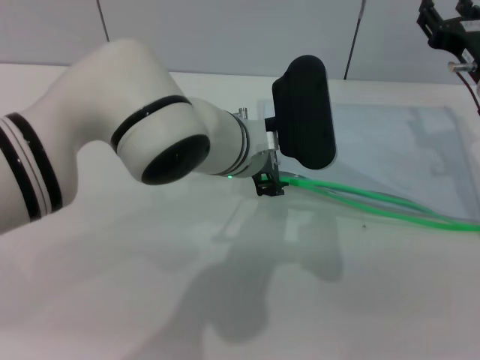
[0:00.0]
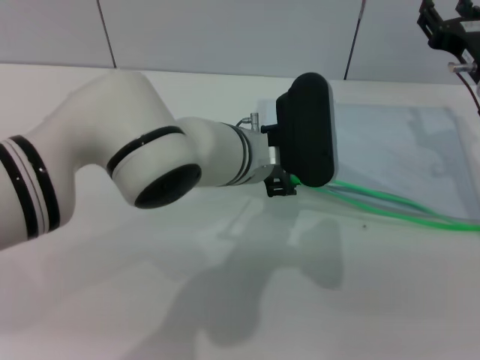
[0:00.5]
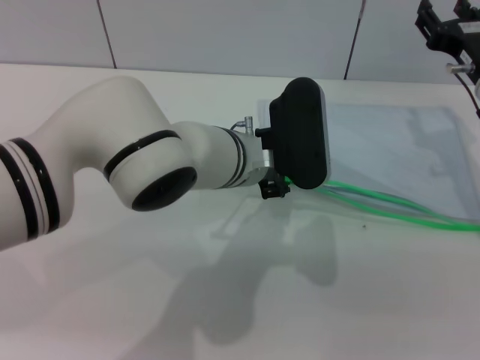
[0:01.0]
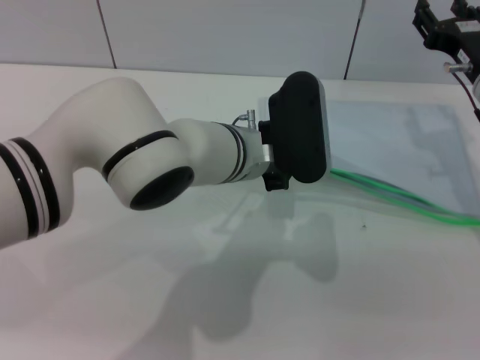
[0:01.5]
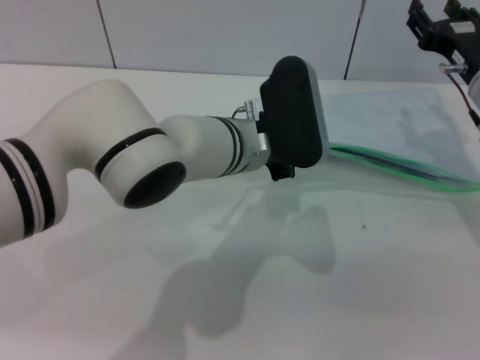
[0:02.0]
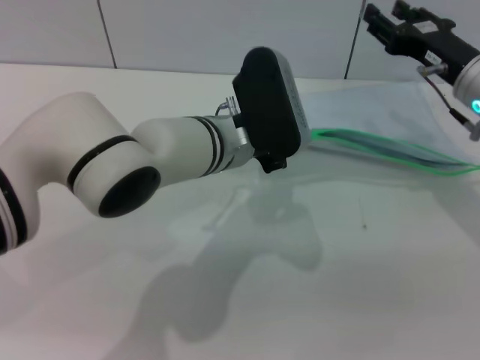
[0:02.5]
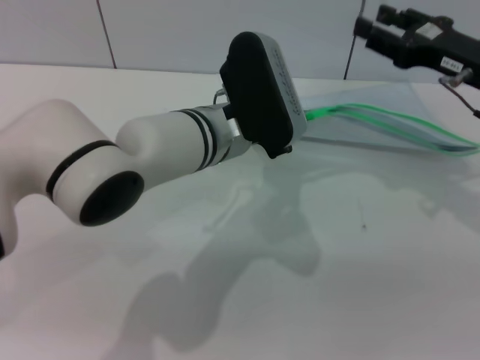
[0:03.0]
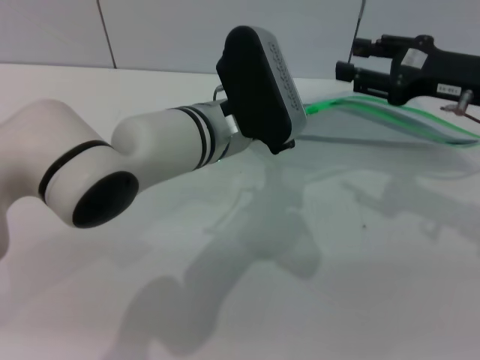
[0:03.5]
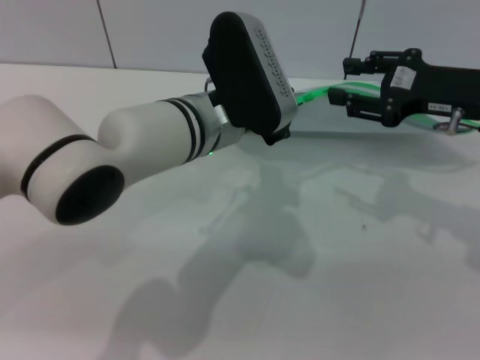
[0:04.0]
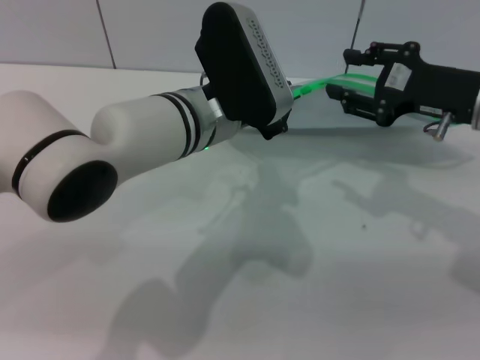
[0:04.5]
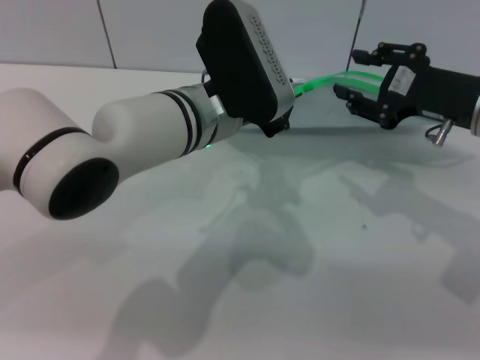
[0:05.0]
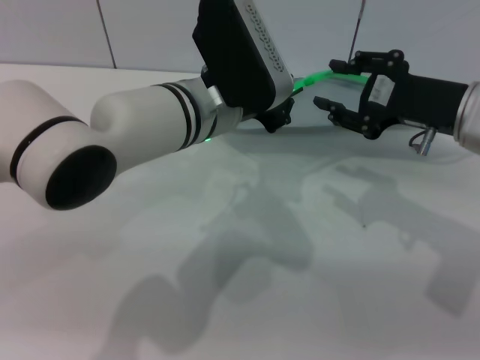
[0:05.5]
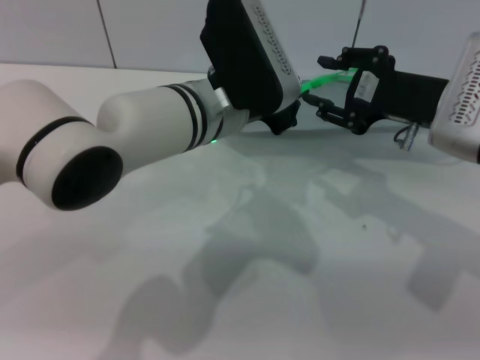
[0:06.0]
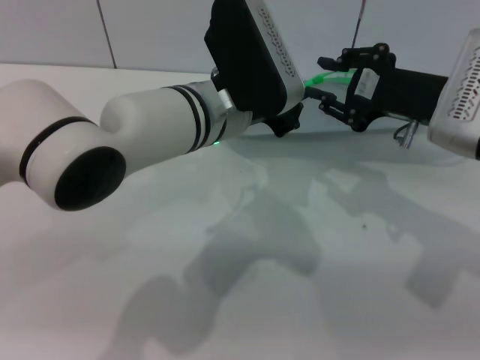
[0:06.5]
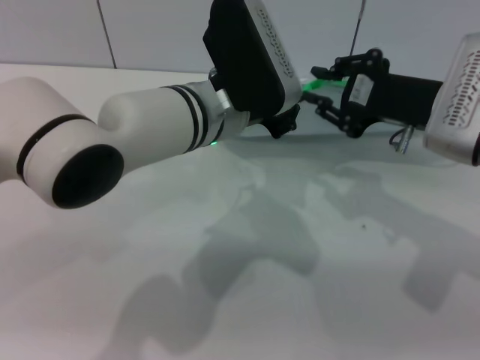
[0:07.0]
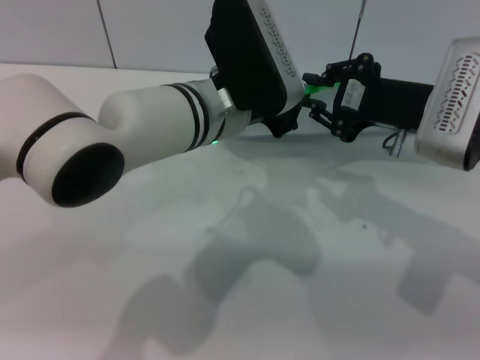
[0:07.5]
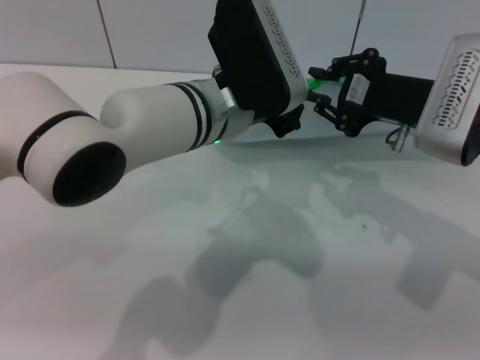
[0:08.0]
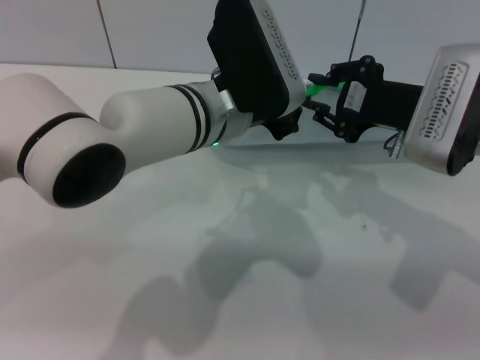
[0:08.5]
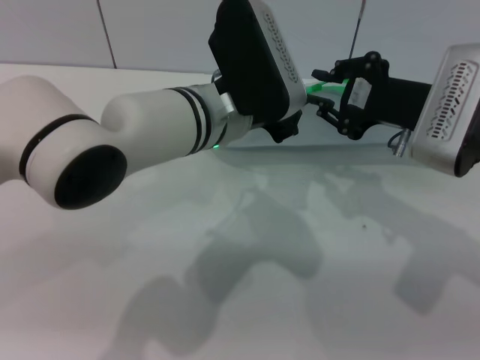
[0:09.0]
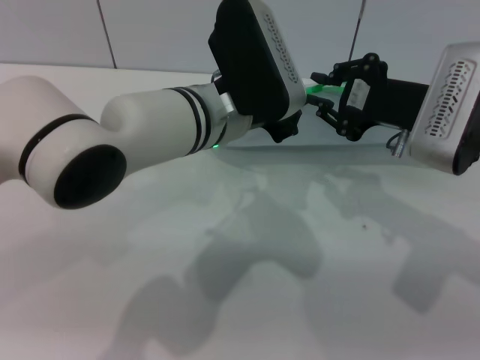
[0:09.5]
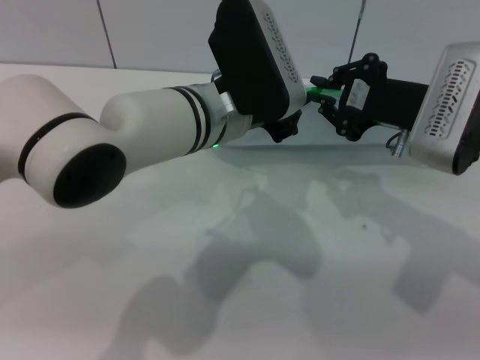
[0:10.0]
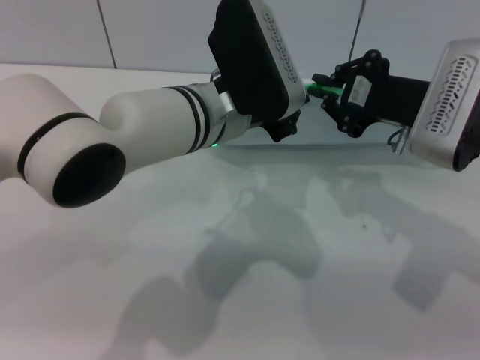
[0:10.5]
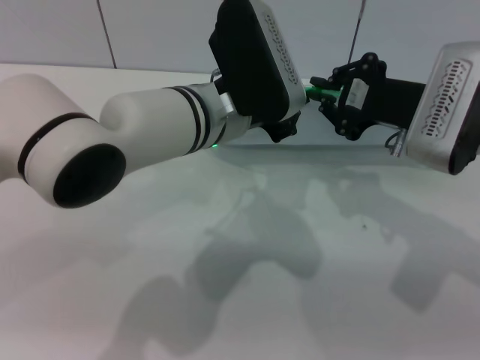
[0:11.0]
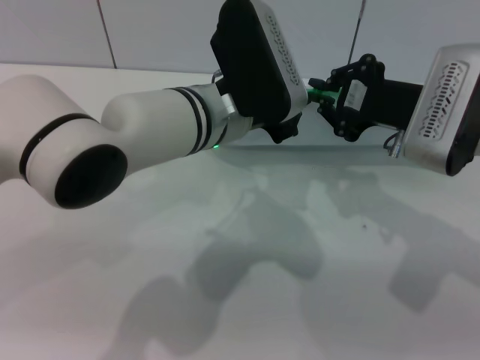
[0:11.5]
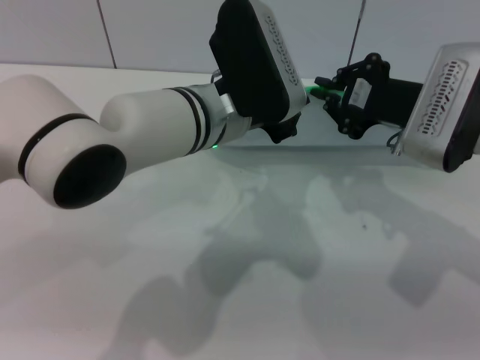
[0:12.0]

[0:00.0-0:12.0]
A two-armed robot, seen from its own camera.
0:00.0 to 0:02.0: The left gripper closes its fingers.
0:02.0 to 0:04.0: The right gripper changes place by roughly 5 cm.
0:04.0 to 0:06.0: The right gripper changes place by some 5 cm.
0:06.0 to 0:08.0: The right gripper closes up.
0:08.0 to 0:12.0: Both grippers stay put.

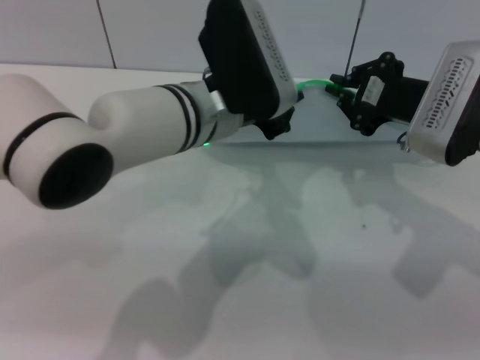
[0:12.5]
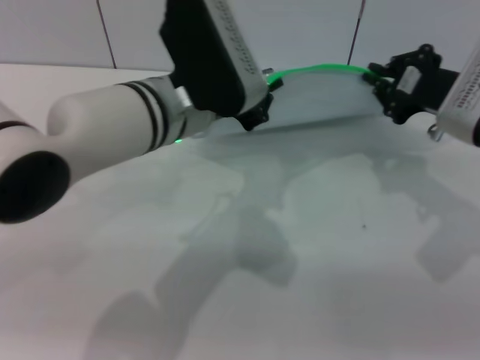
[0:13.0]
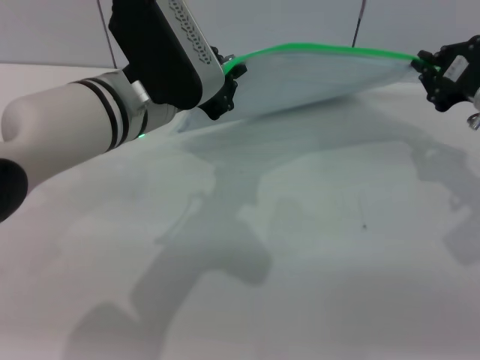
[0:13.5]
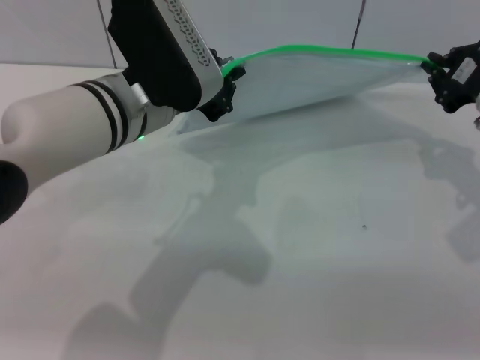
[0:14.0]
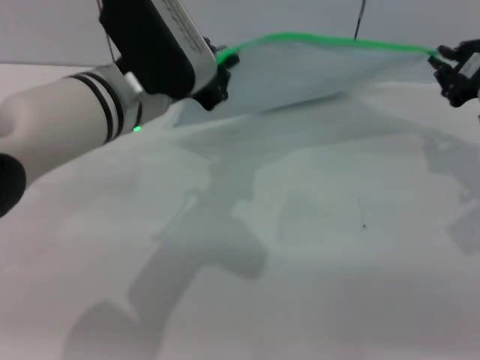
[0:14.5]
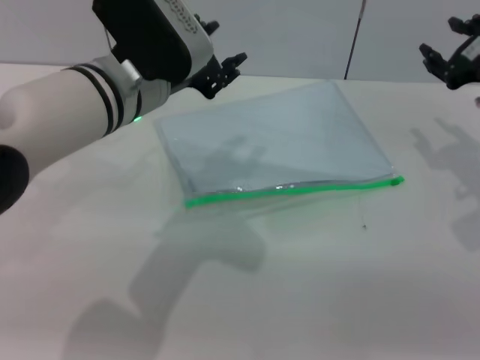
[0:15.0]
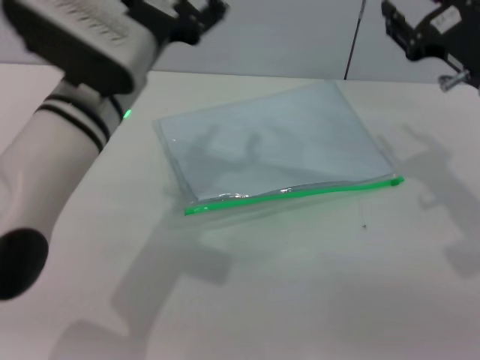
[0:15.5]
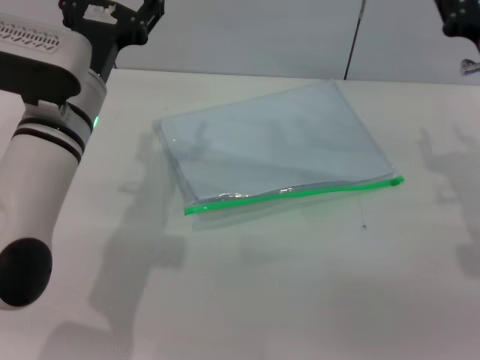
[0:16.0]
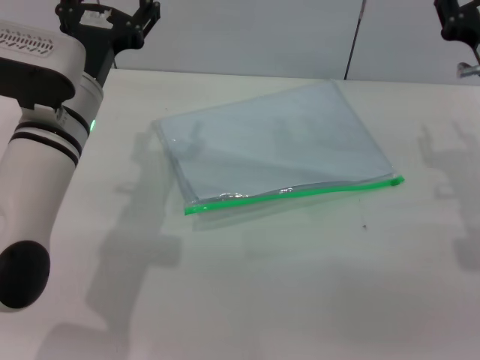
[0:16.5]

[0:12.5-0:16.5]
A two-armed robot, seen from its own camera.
Step, 0:12.5 to 0:15.0: Pulling up the zipper on the transparent plastic bag with the right gripper to close it.
0:12.5 to 0:14.5: The left gripper travels to the left by approximately 5 cm. Meanwhile the right gripper is displaced to the right by about 10 cm.
0:14.5 to 0:16.5: The right gripper shifts by roughly 5 cm, and opens up; the left gripper goes some 5 cm downward and to the left, and opens up.

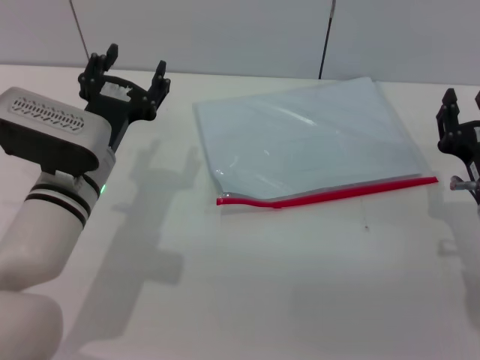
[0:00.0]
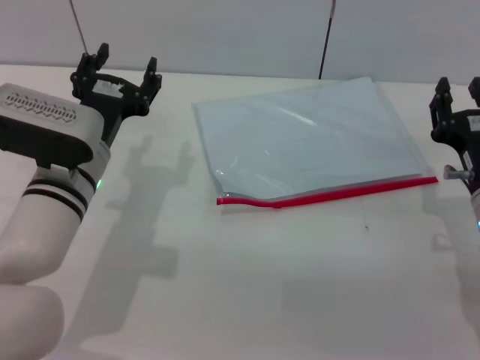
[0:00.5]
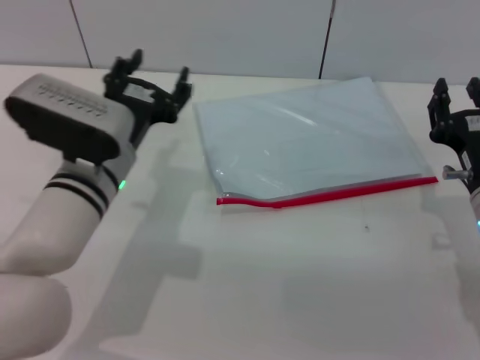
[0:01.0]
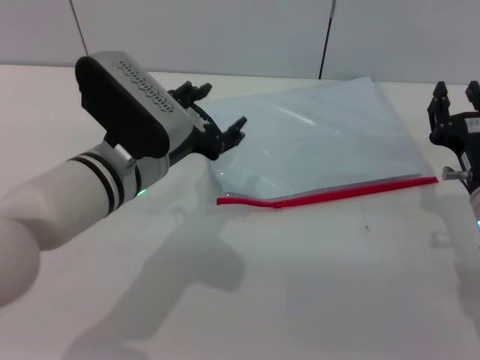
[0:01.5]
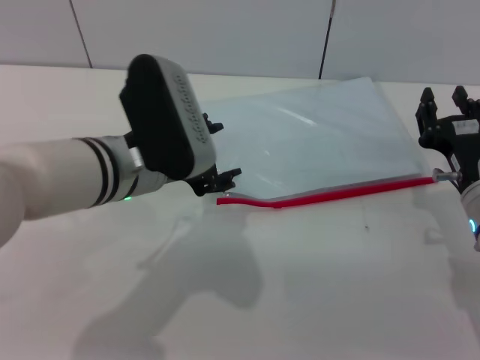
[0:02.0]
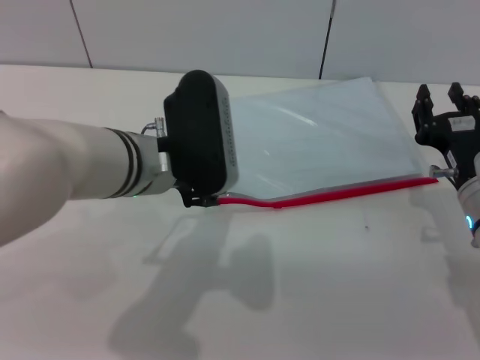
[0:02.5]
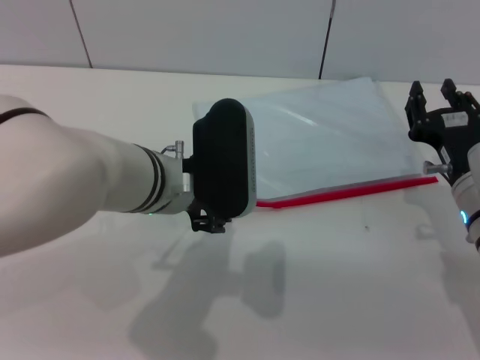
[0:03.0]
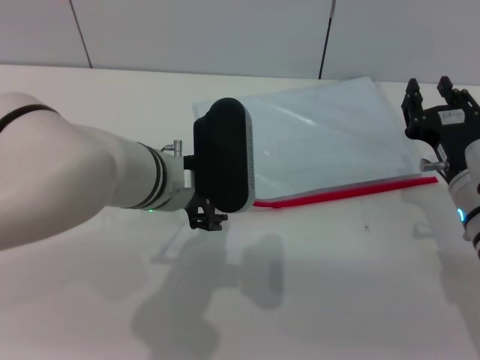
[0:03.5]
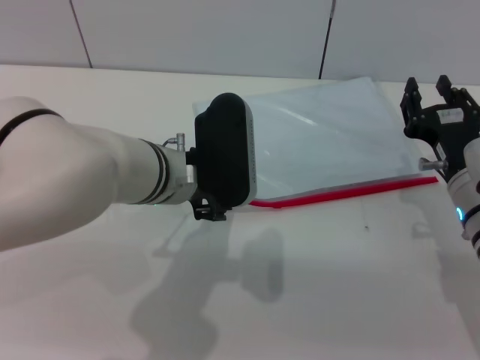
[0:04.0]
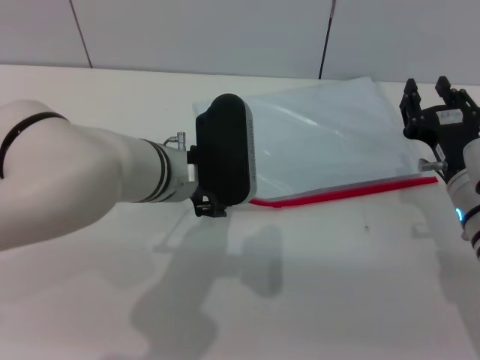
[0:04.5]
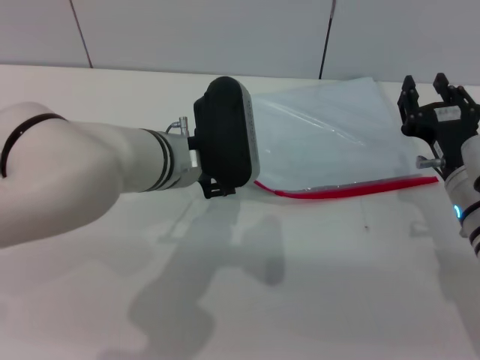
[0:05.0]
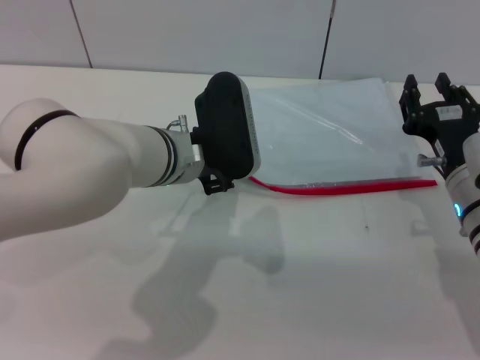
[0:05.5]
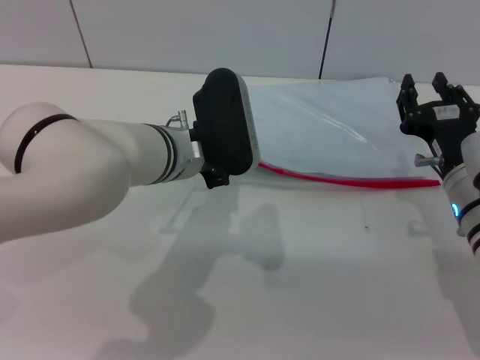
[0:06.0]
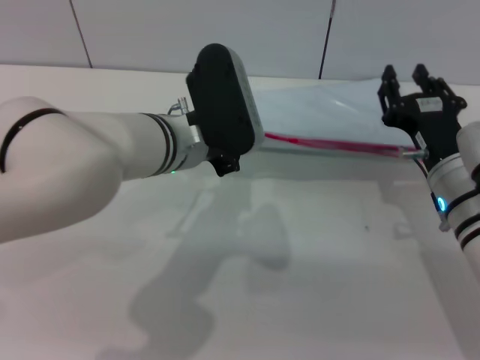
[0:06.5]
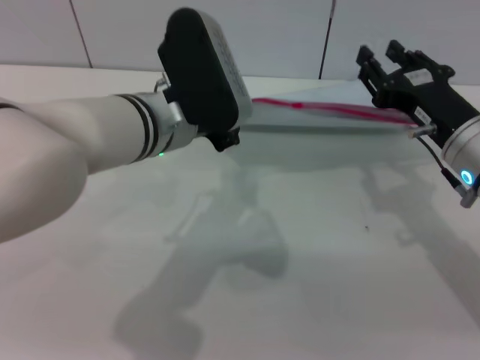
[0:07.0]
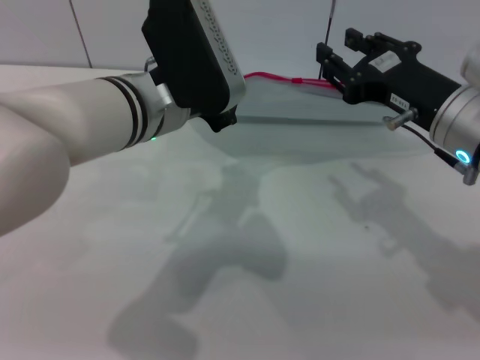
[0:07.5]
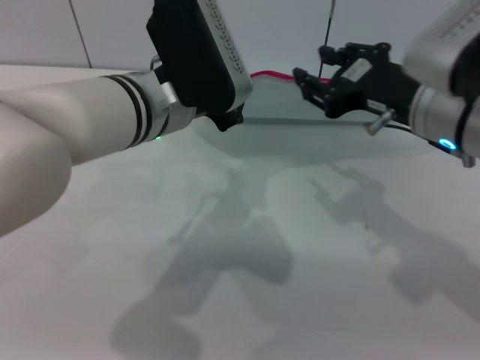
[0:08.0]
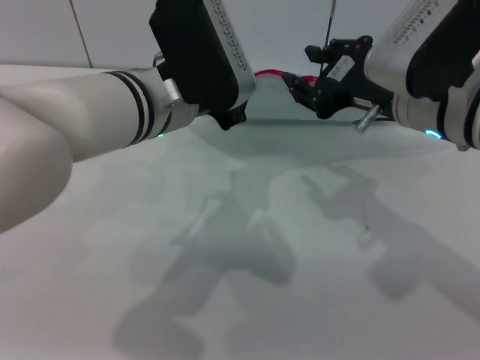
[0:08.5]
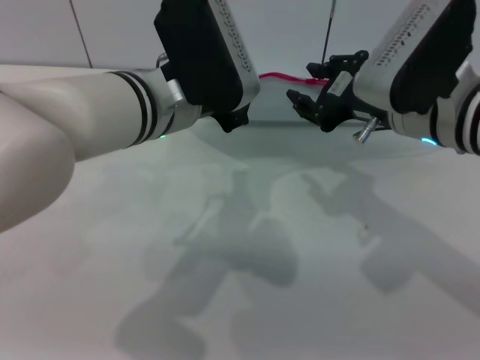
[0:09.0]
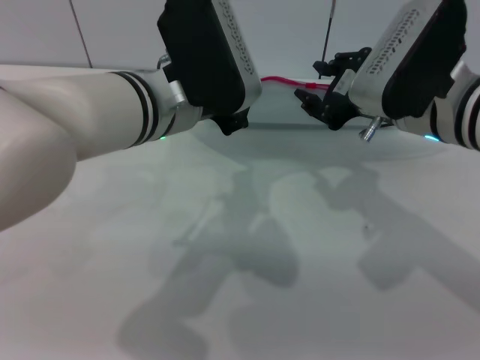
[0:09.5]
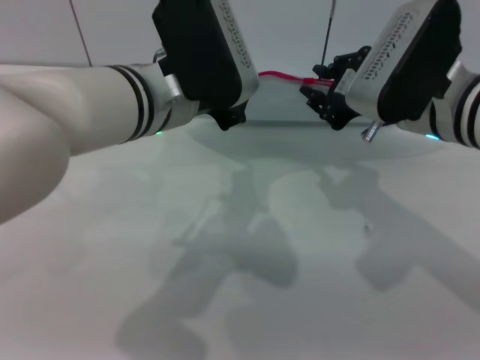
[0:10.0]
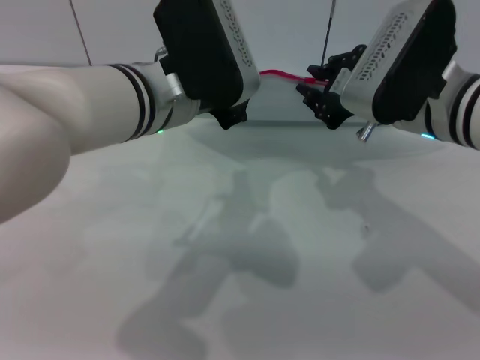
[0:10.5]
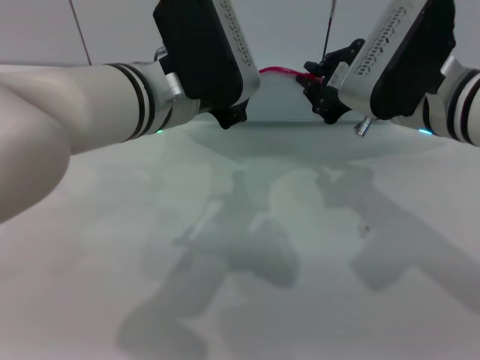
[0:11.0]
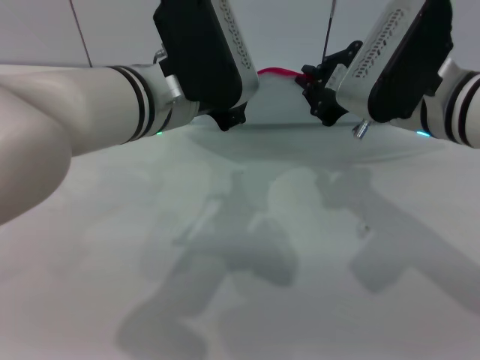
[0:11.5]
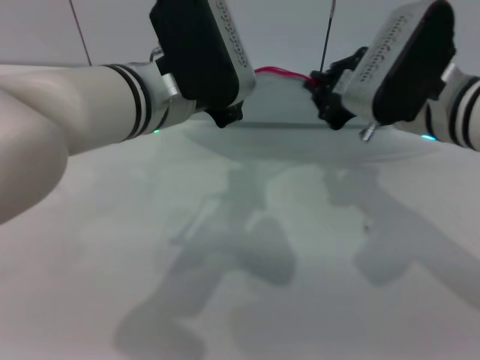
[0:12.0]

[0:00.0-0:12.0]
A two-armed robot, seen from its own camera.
Step, 0:00.0 to 0:07.0: Pick up the transparent plastic bag with the right gripper.
0:00.0 to 0:02.0: The left gripper shifts roughly 5 cm upward.
0:04.0 to 0:06.0: The left gripper closes up.
0:06.0 to 0:08.0: The left gripper travels upward by roughly 10 cm, and closes its fingers. Meanwhile the right gripper goes some 10 cm upward.
0:10.0 to 0:12.0: The right gripper closes up.
